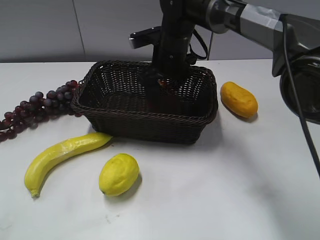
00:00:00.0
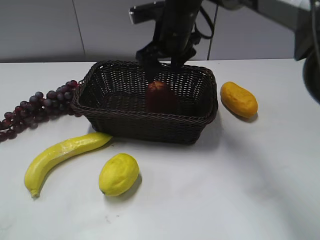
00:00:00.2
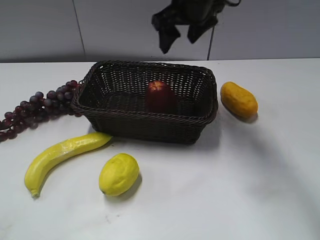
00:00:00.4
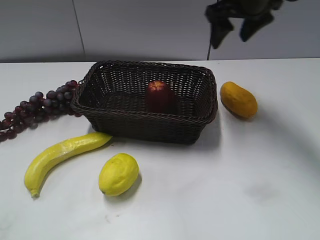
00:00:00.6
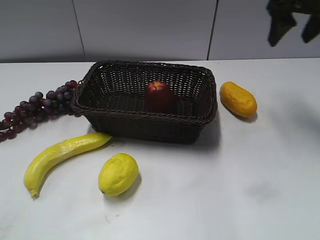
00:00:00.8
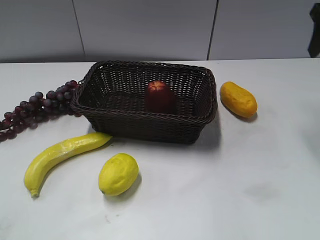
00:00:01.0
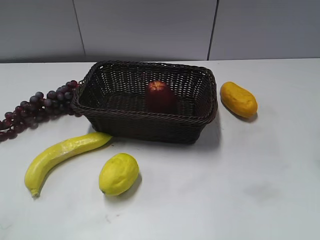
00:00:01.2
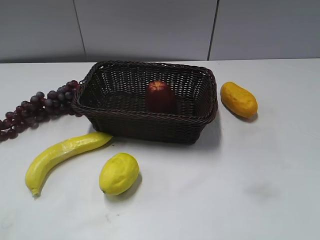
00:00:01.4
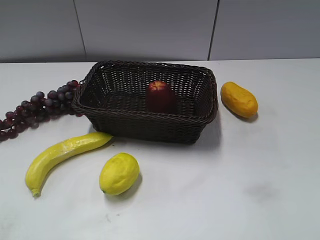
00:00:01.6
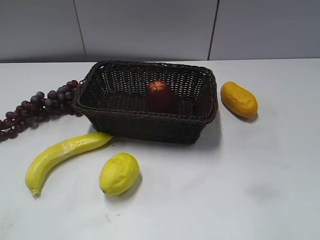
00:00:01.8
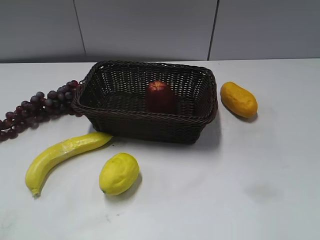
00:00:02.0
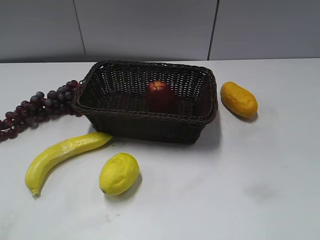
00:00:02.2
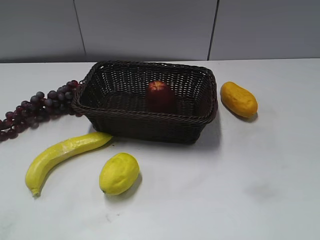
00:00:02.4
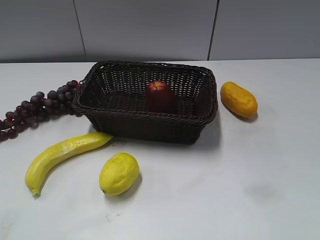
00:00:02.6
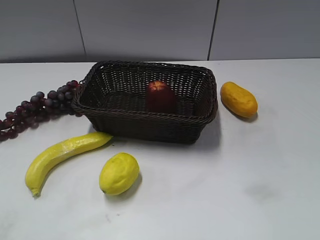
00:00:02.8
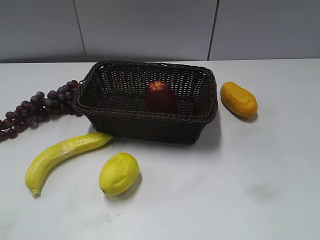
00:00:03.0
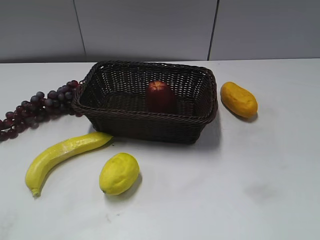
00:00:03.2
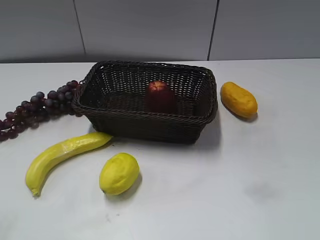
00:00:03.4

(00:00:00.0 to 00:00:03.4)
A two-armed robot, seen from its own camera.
00:00:00.0 - 00:00:01.6: The right gripper travels to the right and backward by about 40 cm.

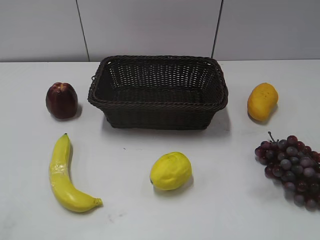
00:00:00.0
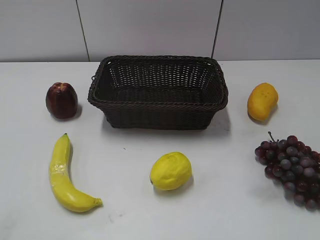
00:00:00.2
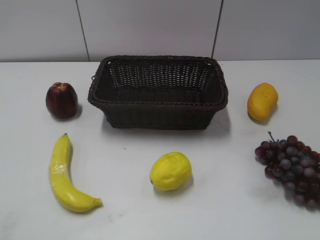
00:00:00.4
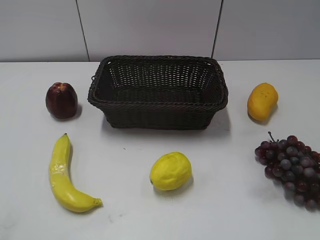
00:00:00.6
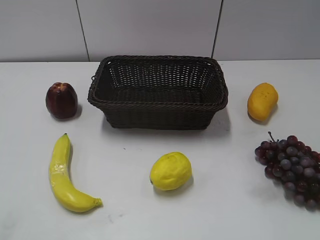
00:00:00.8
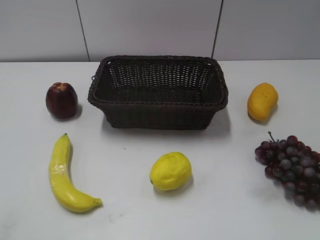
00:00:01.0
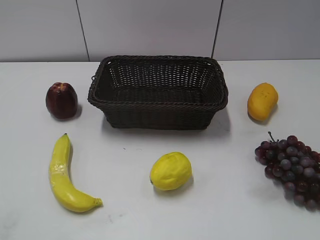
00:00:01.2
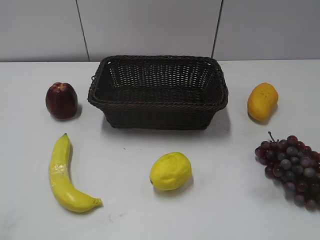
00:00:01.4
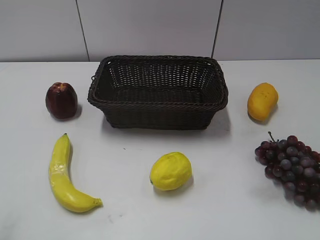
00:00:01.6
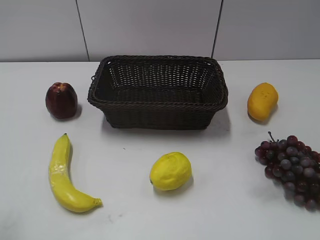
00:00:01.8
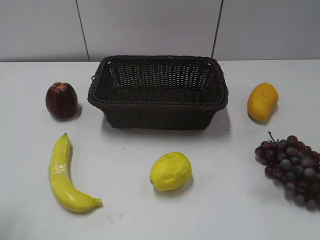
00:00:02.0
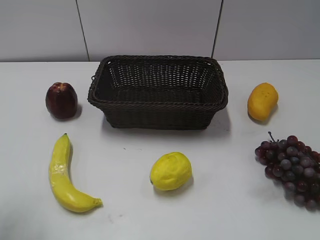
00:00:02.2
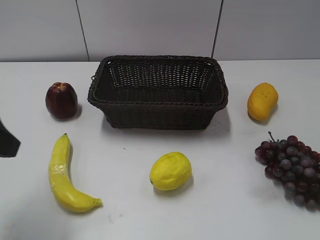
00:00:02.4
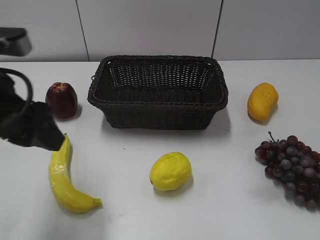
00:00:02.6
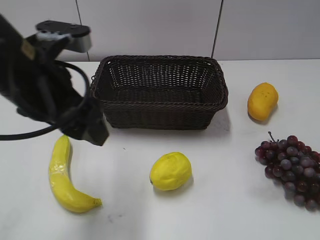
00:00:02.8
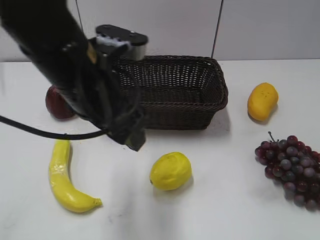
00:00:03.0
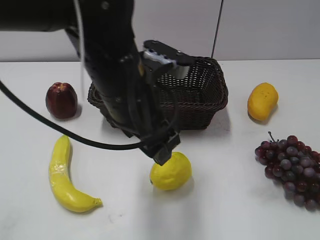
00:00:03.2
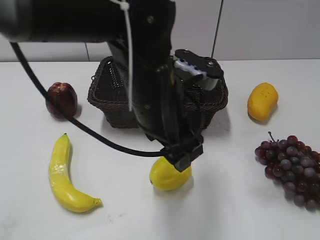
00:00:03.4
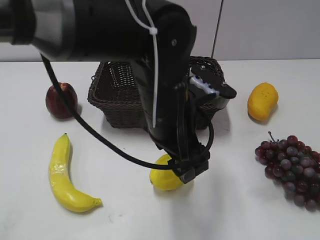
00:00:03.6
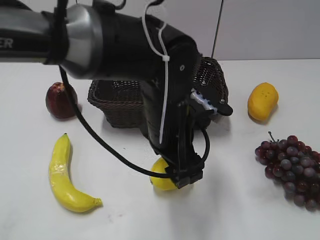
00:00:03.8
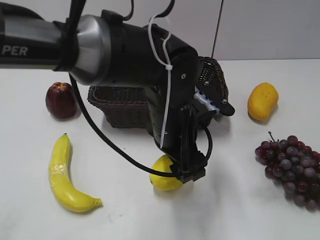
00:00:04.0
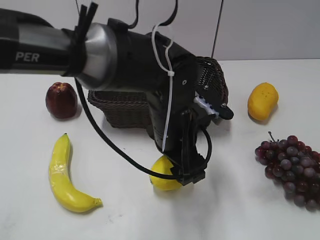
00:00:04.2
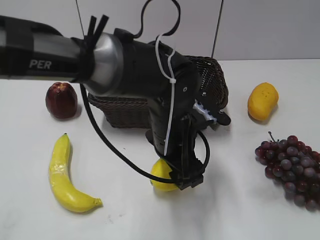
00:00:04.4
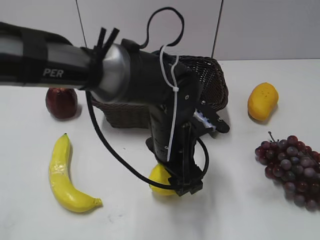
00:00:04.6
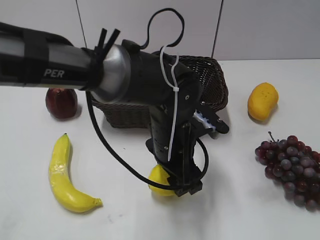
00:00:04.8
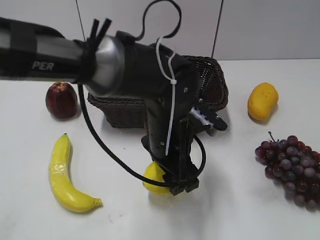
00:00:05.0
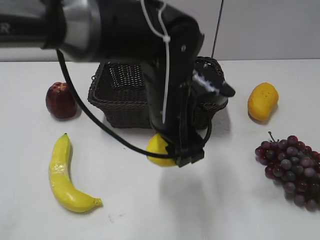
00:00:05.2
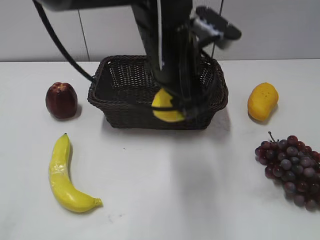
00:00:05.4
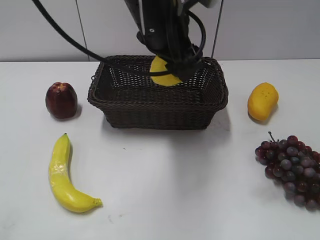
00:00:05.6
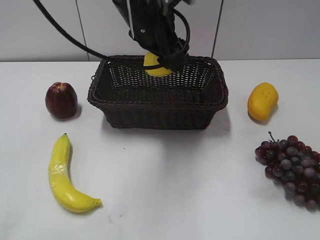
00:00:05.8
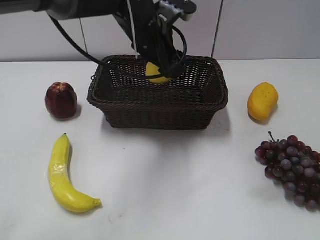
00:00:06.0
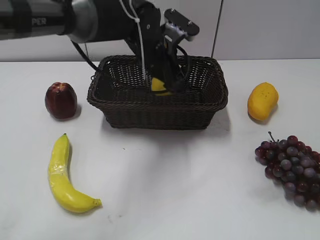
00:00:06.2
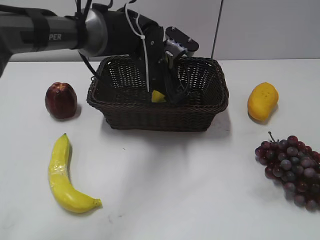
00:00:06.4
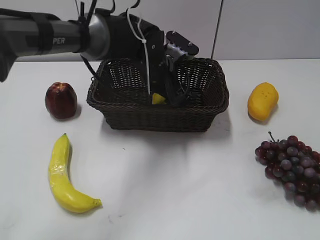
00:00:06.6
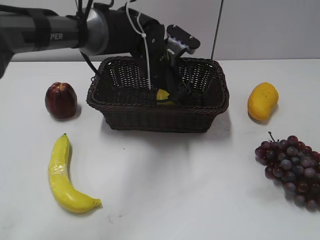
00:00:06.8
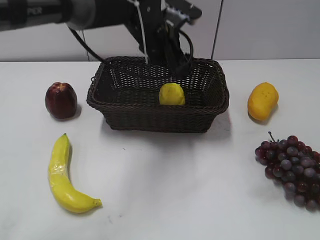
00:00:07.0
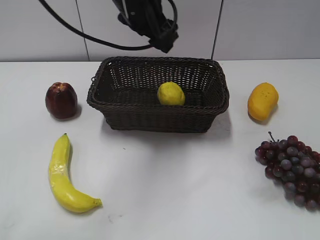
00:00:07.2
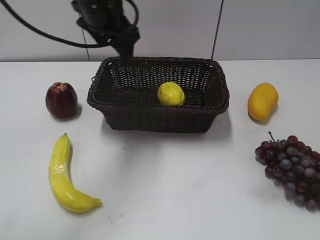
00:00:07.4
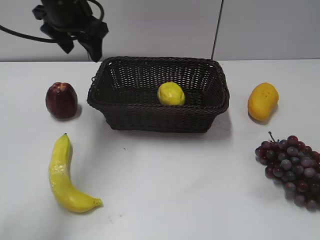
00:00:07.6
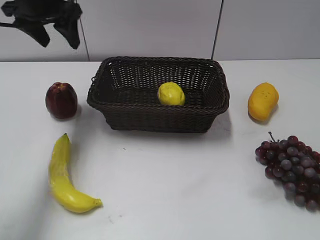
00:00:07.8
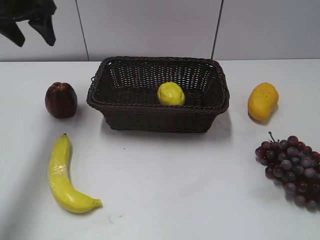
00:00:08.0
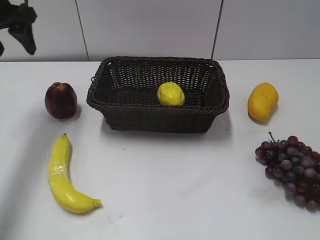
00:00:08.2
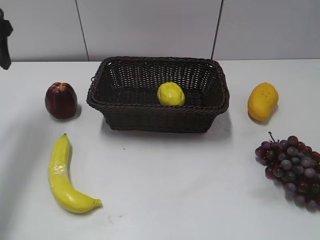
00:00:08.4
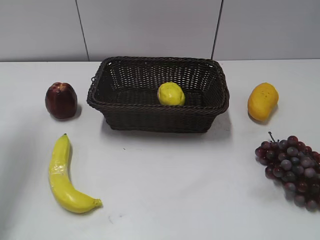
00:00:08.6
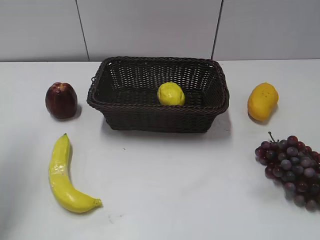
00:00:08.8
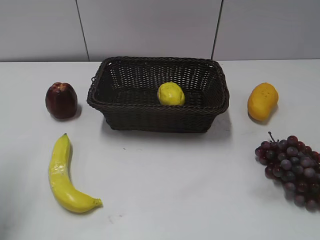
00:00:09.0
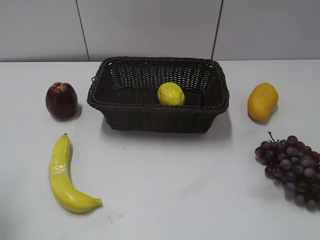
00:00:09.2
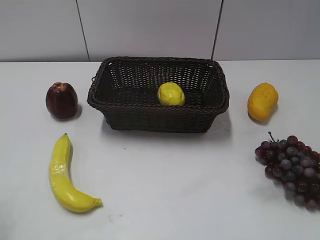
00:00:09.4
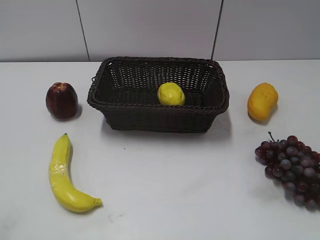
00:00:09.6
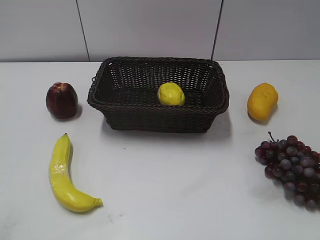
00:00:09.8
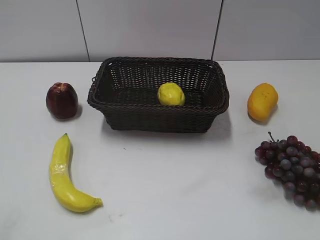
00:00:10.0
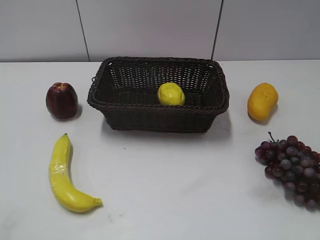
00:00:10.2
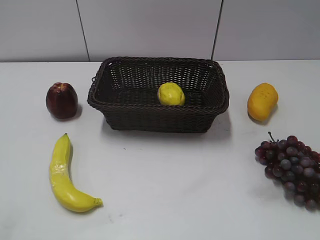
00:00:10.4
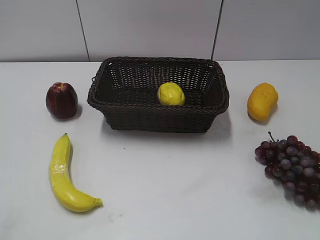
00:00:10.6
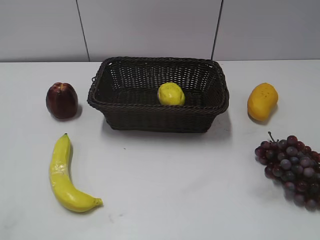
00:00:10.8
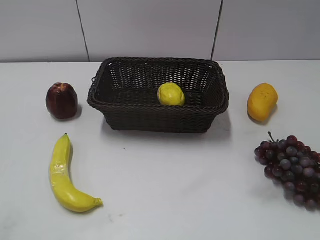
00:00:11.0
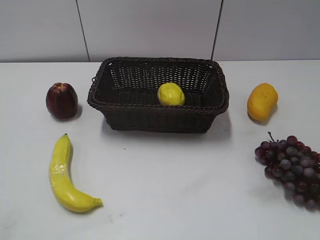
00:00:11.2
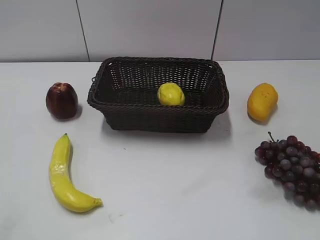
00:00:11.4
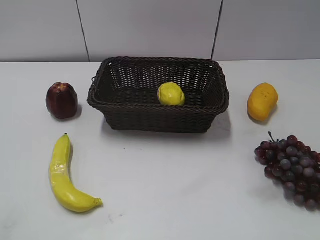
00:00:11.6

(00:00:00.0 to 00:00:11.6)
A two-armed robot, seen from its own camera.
Step, 00:00:02.4 - 00:00:04.8: Grasp the lemon with left gripper.
Step, 00:00:05.2 - 00:00:06.8: Place the lemon in the basket with left gripper.
00:00:01.4 - 00:00:02.8: The left gripper shifts about 25 cm to the right and forward.
00:00:02.8 - 00:00:04.4: The left gripper shifts some 20 cm to the right and downward.
00:00:04.4 - 00:00:05.8: The left gripper moves upward and forward, roughly 15 cm.
00:00:05.8 - 00:00:07.2: The left gripper travels downward and back again, approximately 10 cm each way.
00:00:07.2 - 00:00:08.8: The left gripper moves to the left, some 30 cm.
00:00:08.8 - 00:00:10.2: The left gripper travels backward by approximately 25 cm.
